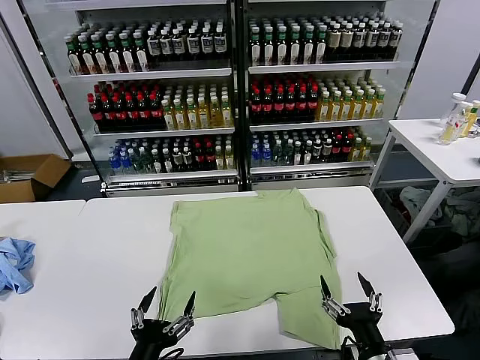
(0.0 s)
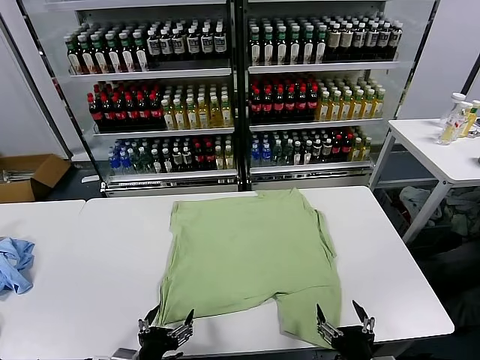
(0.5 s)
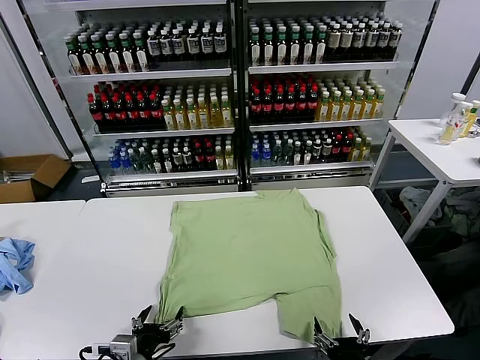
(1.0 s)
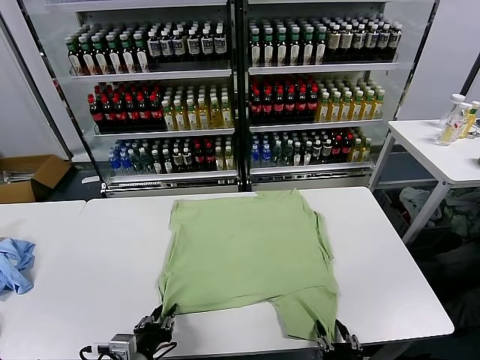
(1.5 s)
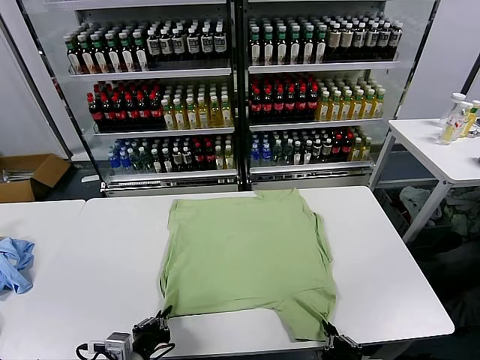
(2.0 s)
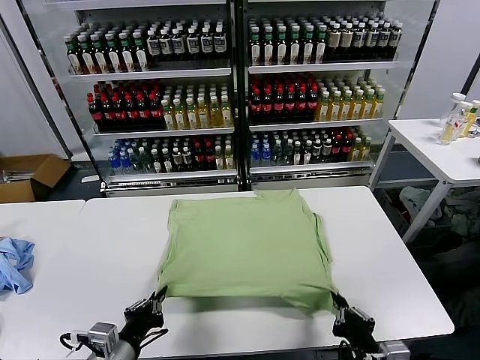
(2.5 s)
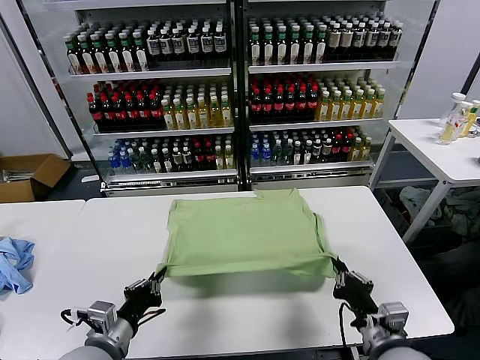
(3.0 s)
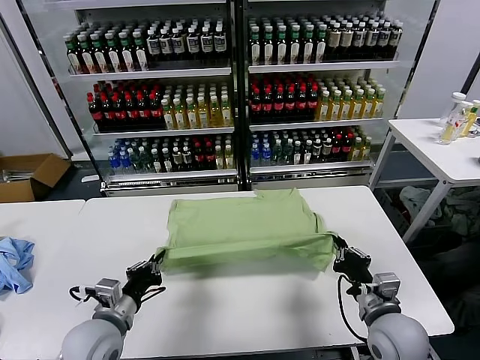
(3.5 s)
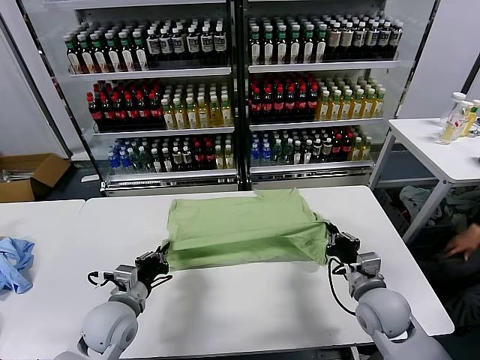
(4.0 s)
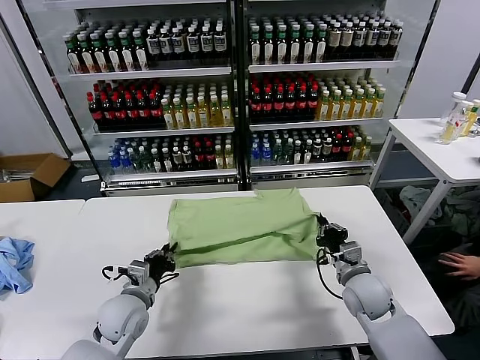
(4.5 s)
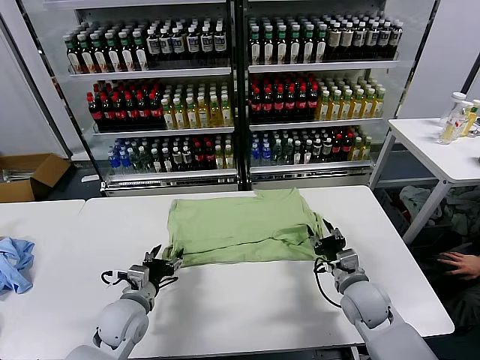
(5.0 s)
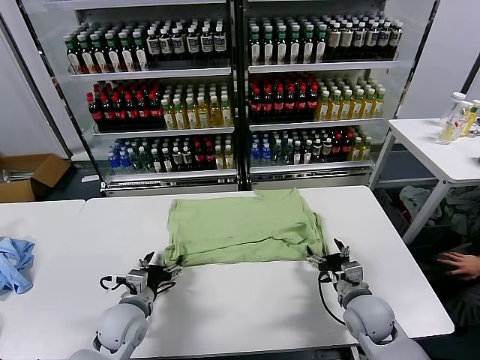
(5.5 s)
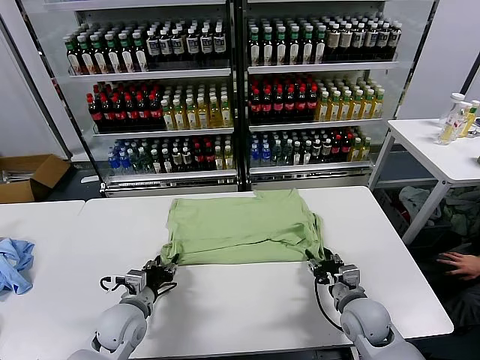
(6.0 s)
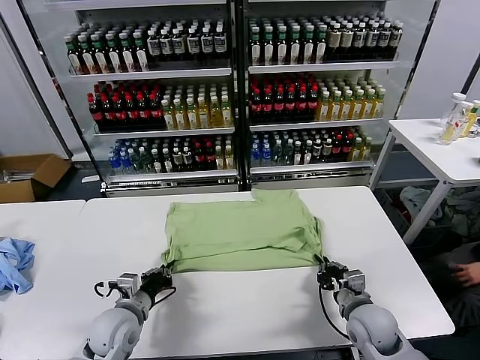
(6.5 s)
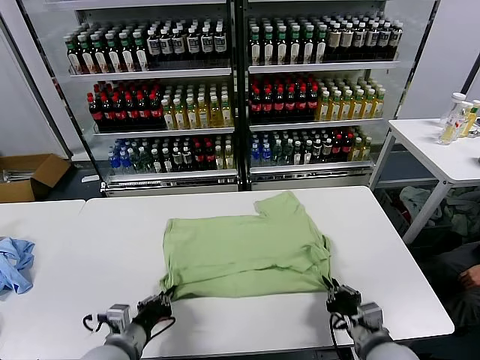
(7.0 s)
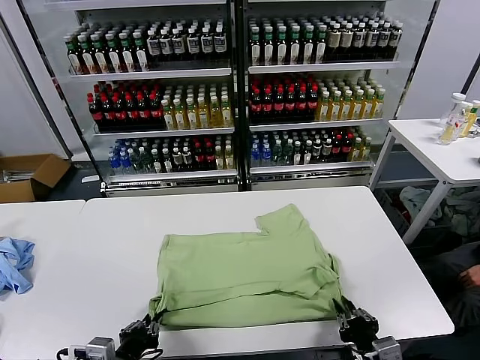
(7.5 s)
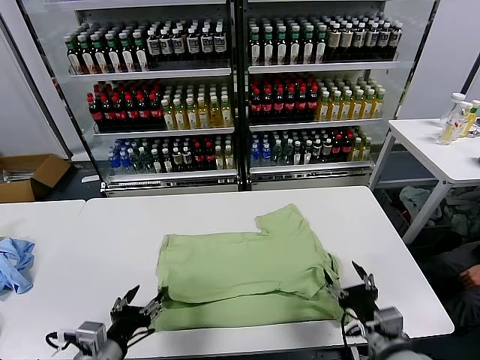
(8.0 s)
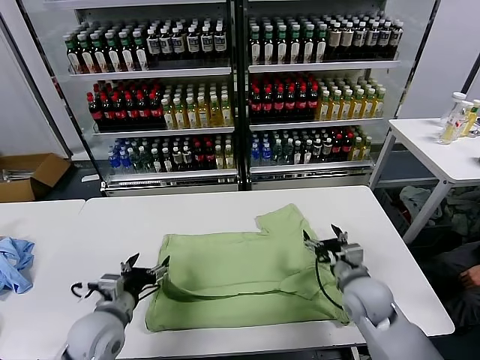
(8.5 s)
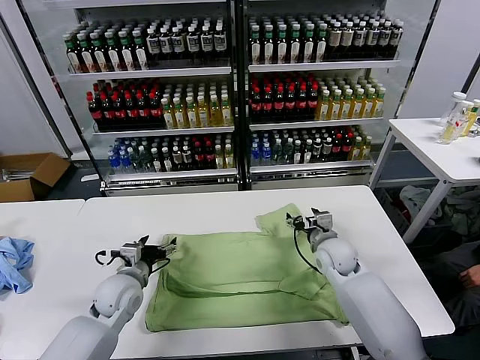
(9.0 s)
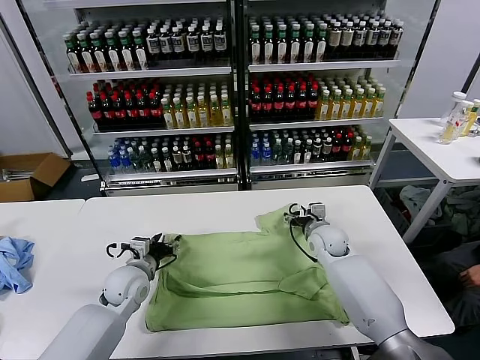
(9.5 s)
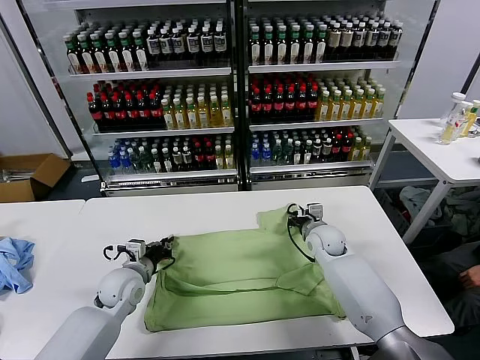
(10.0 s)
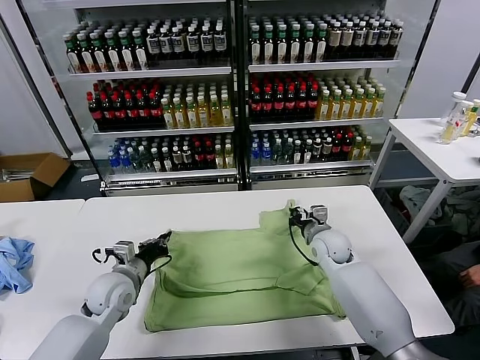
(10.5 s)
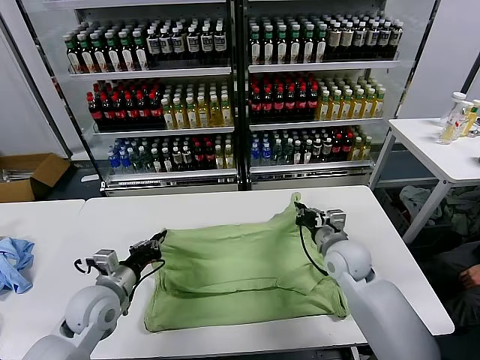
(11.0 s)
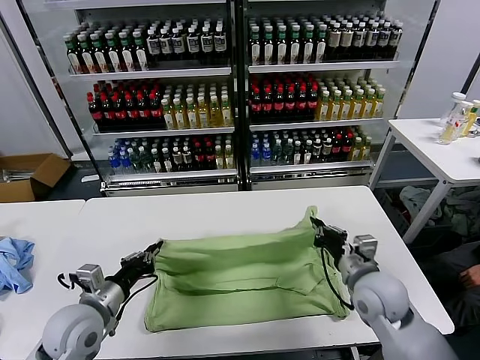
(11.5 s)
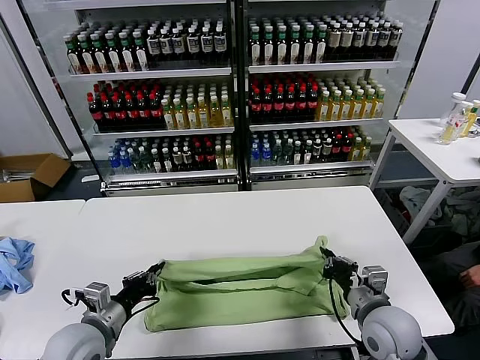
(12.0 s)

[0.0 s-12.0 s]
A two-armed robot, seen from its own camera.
Task of the whole recording: fold and organize the clothes.
Step, 0.0 to 2.0 s: use both grippers simultaneously to clamp the lower edge of the clothing fabric.
Step, 2.5 to 5.0 s: use both grippers to drag the lower edge of the fabric forward and fold it over the upper edge.
Step, 5.5 to 7.5 s: Drag the clothes downward with both gripper.
Step, 8.0 to 10.0 s: use both grippers simultaneously to clamp the upper edge of the clothing fabric.
2.0 to 4.0 s: The left gripper goes some 15 cm forward; the right gripper heads forward, covering some 20 cm.
4.0 to 6.0 s: The left gripper opens its fingers. Meanwhile the right gripper heads downward, covering about 5 cm, and opens up.
6.0 to 8.0 s: Both grippers move backward and upward, some 15 cm. The right gripper opens its fingers. Meanwhile the left gripper closes, then opens again.
8.0 to 10.0 s: Both grippers move forward, approximately 25 cm. The left gripper closes, while the right gripper closes its fingers.
10.0 to 12.0 s: The right gripper heads backward, covering approximately 25 cm, while the left gripper goes about 15 cm backward.

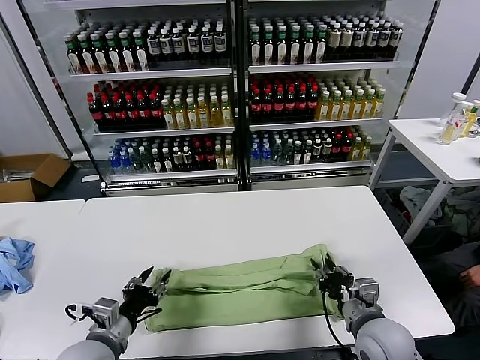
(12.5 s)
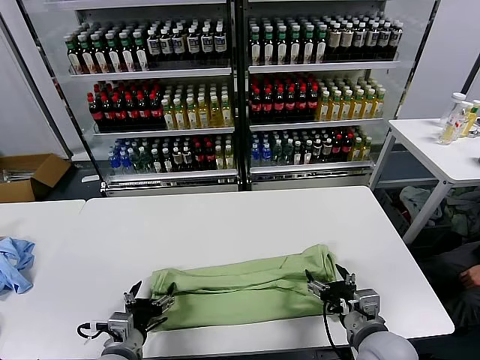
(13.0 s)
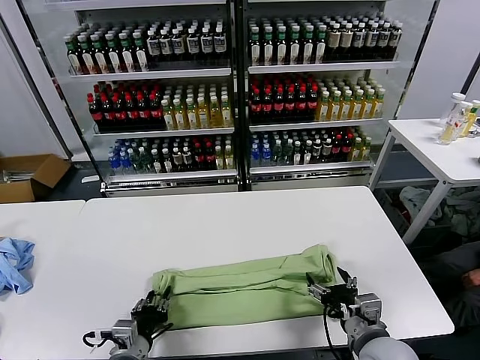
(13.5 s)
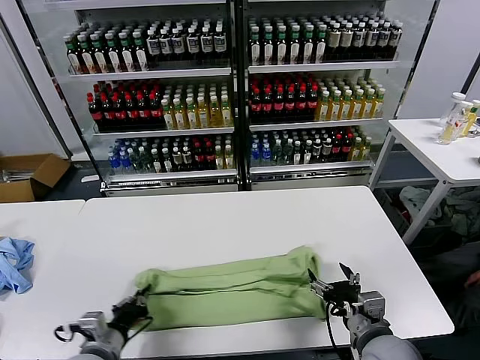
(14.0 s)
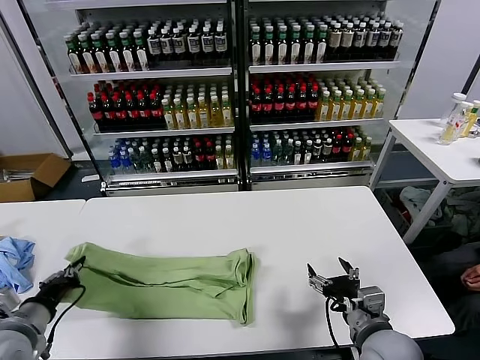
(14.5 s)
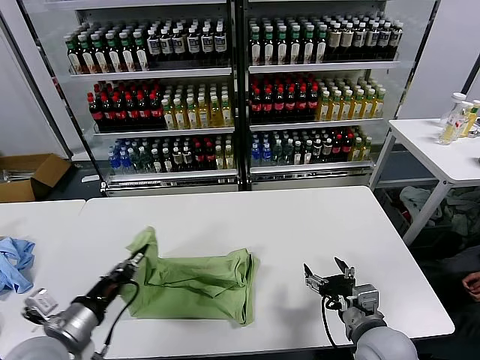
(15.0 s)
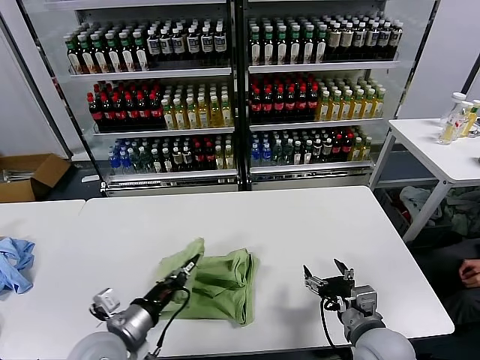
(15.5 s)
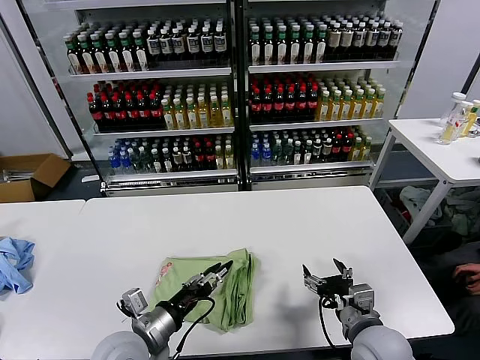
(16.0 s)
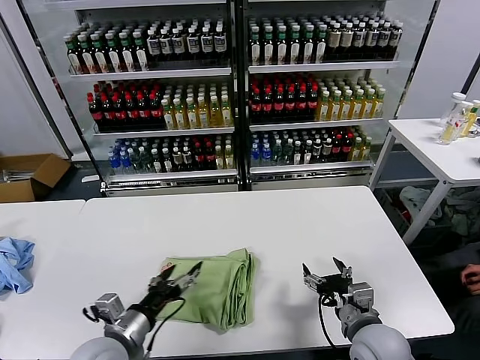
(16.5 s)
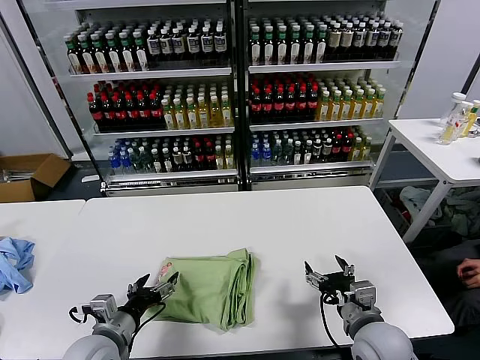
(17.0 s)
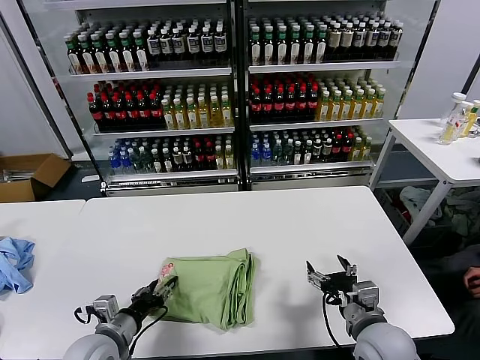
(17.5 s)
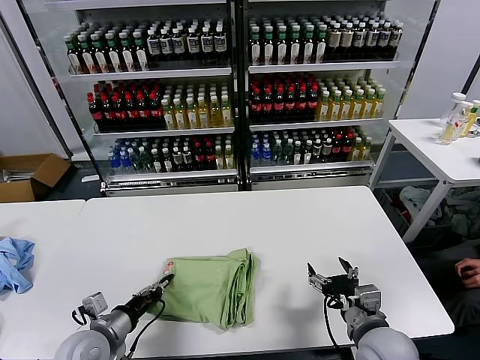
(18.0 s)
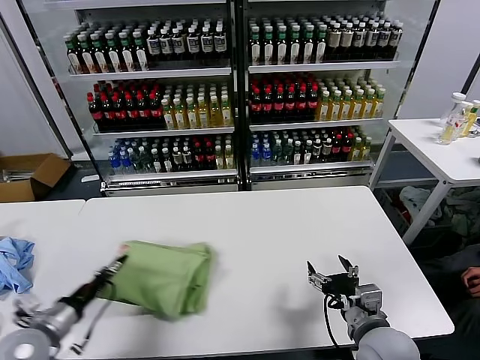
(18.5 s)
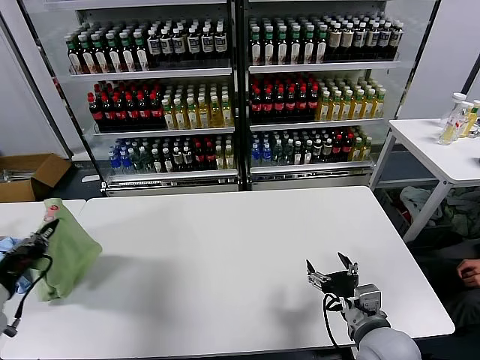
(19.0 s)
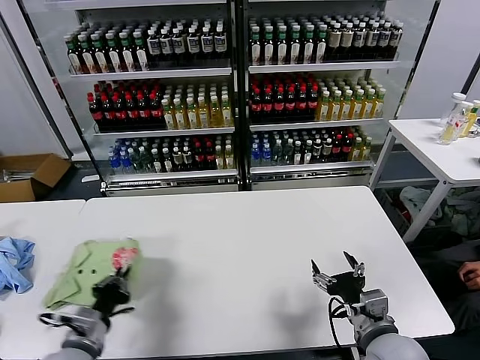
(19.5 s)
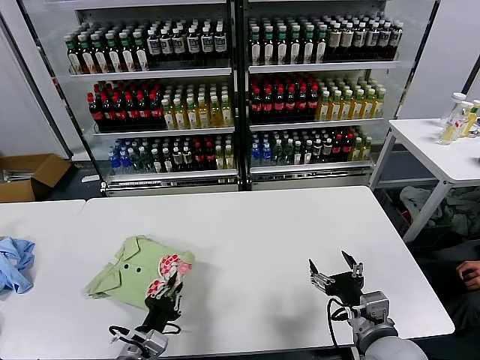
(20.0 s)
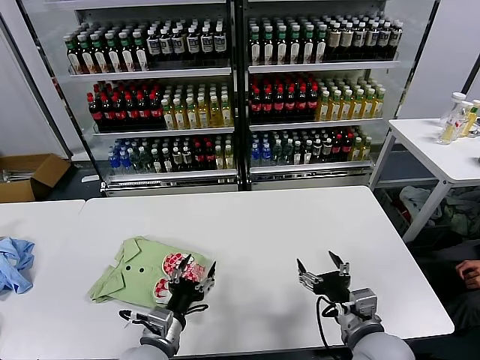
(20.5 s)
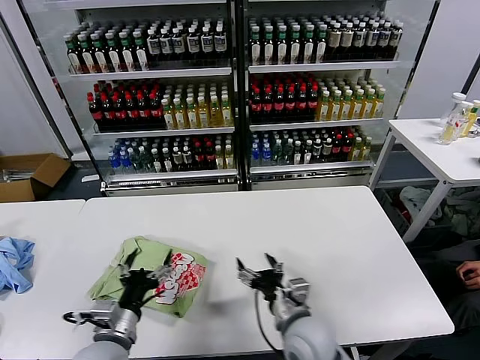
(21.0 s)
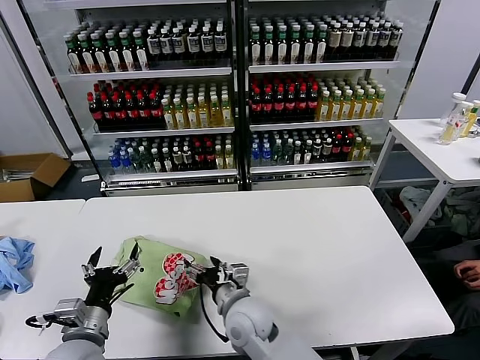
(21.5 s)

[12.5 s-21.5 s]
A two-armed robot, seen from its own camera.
Task of the whole recording: fold and organize the clothes.
Step, 13.0 to 13.5 s: use the left gripper to clamp the left edge of the fabric.
Step, 14.0 to 16.0 s: use the left gripper to drag the left edge of the fabric to the left and folds it over the right edge.
Step, 16.5 to 20.0 s: Flip the folded clothes over with left gripper.
12.5 to 14.5 s: The right gripper opens; the left gripper shifts about 15 cm to the left, and closes.
14.5 to 17.0 s: The left gripper moves to the right and downward, roughly 15 cm, and opens up.
17.0 to 19.5 s: The left gripper moves some 15 cm to the left and comes back, and closes.
19.5 to 21.5 s: The right gripper heads to the left, covering roughly 25 cm. Meanwhile the left gripper travels to the right and back again, some 15 cm each way, and opens its fingers.

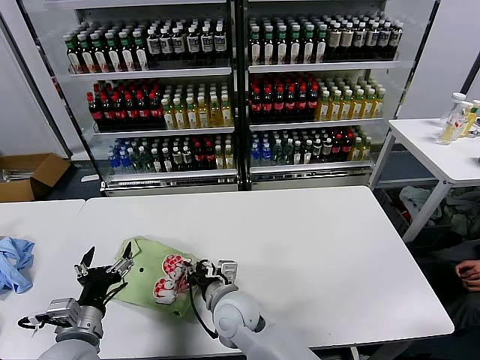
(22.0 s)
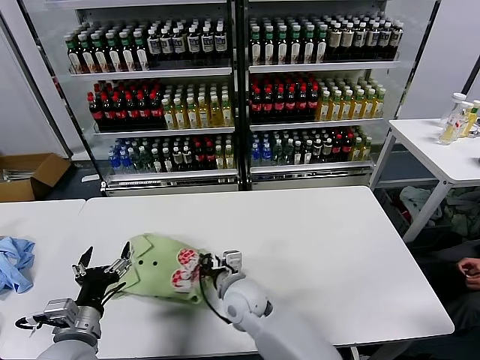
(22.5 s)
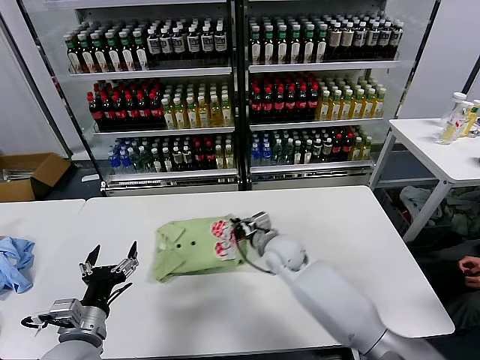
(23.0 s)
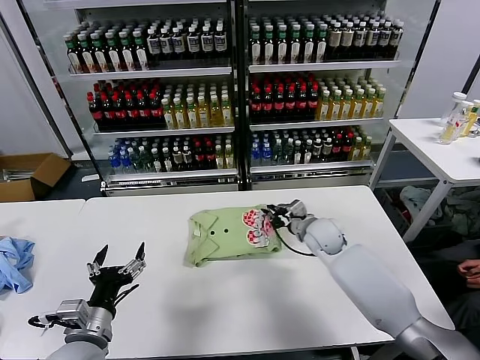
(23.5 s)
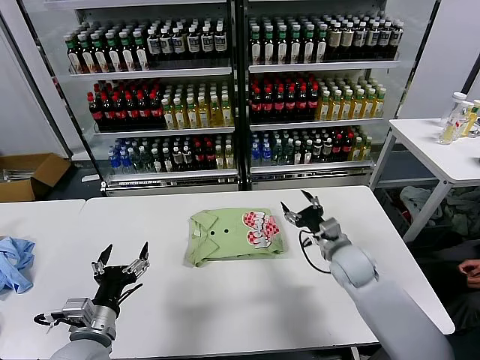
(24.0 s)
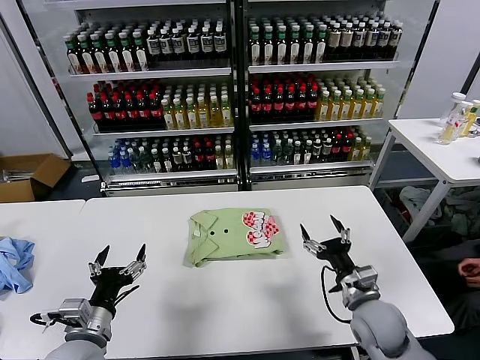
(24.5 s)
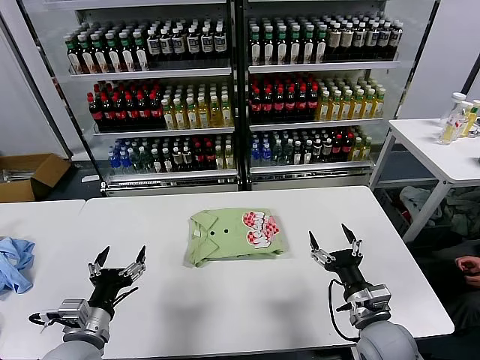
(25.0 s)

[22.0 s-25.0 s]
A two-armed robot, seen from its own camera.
Task of the whole recording: fold and organize the clothes.
22.0 to 23.5 s: The right gripper shifts approximately 30 cm to the right and forward.
23.5 to 25.0 s: The right gripper heads backward, covering roughly 25 cm, and opens.
